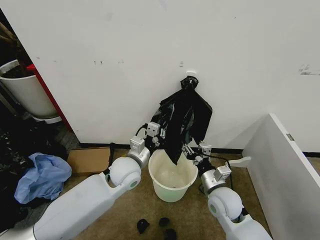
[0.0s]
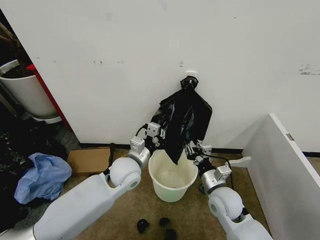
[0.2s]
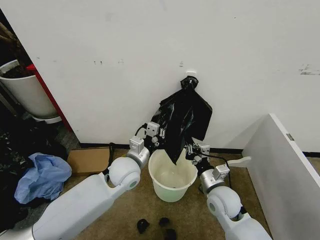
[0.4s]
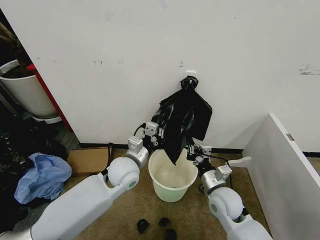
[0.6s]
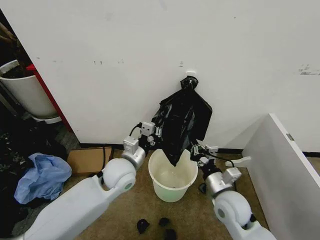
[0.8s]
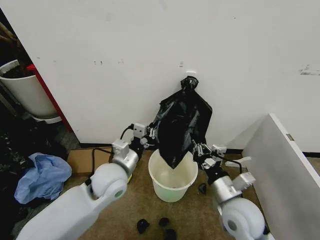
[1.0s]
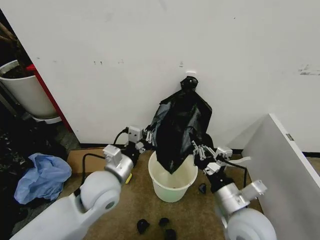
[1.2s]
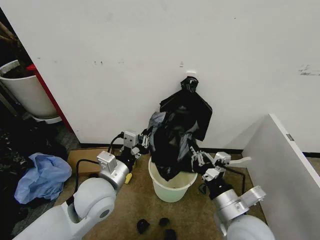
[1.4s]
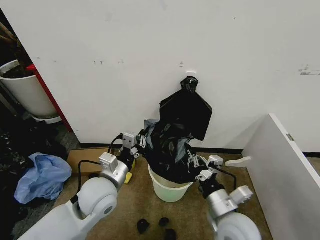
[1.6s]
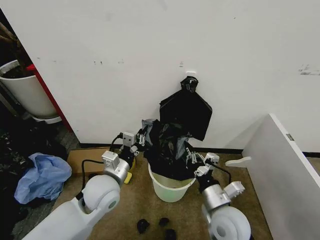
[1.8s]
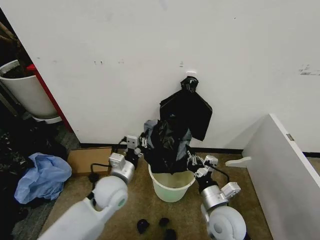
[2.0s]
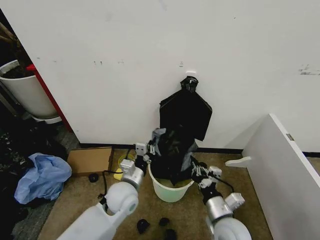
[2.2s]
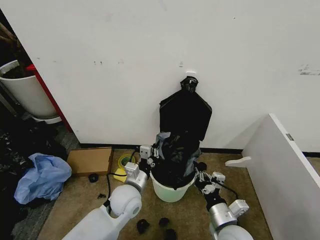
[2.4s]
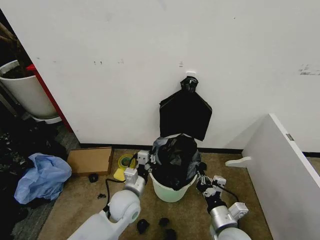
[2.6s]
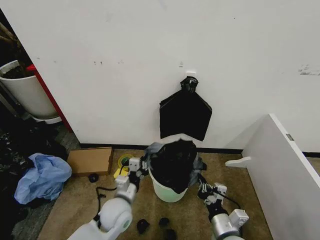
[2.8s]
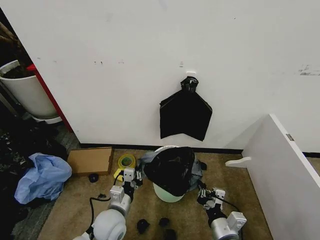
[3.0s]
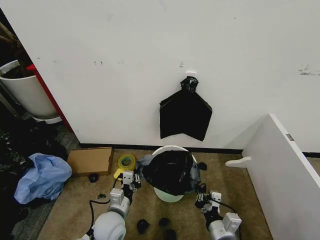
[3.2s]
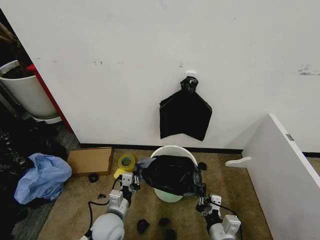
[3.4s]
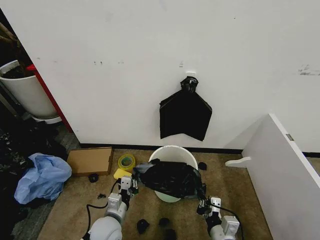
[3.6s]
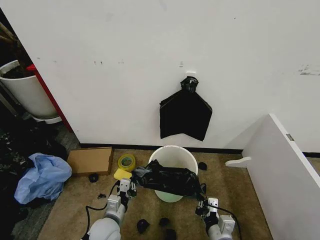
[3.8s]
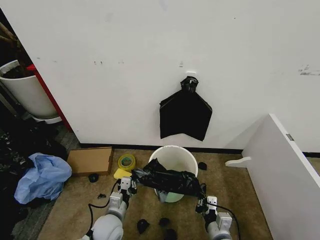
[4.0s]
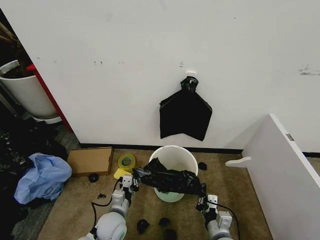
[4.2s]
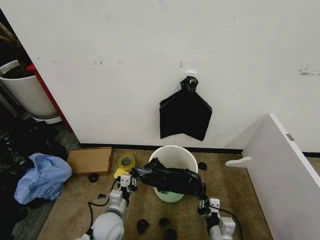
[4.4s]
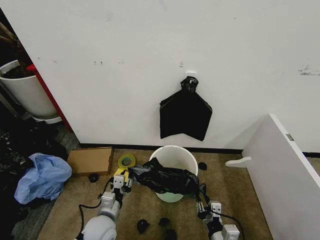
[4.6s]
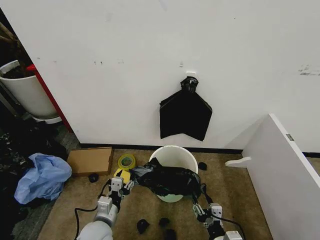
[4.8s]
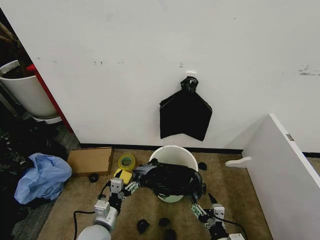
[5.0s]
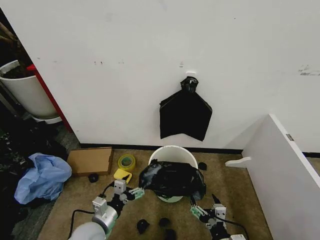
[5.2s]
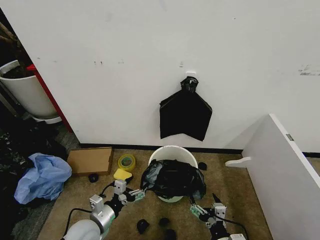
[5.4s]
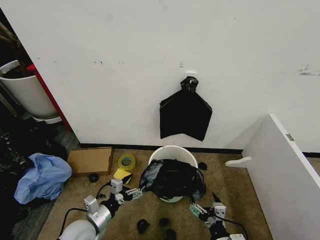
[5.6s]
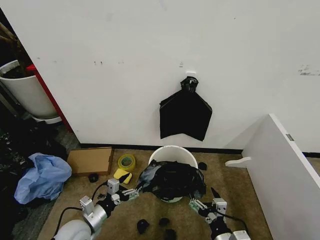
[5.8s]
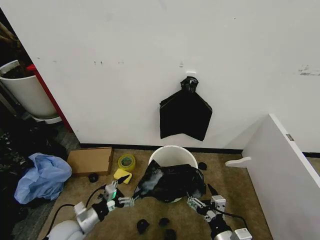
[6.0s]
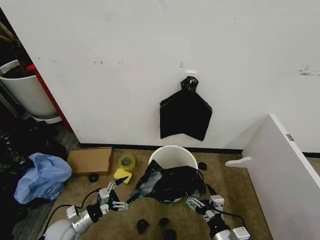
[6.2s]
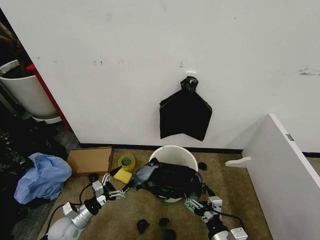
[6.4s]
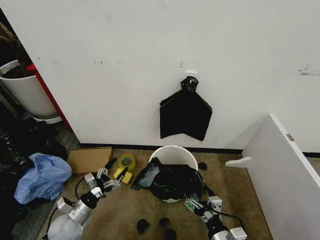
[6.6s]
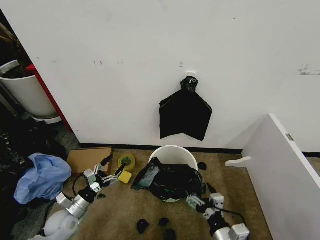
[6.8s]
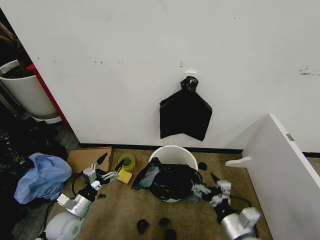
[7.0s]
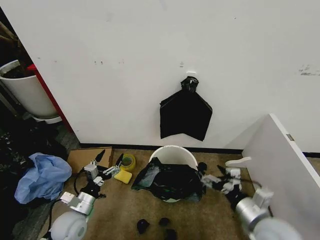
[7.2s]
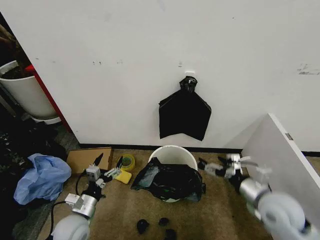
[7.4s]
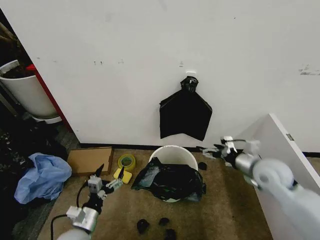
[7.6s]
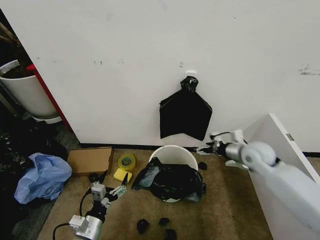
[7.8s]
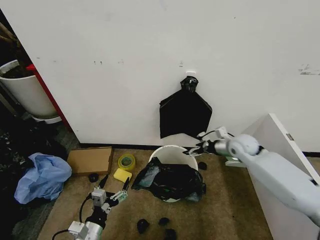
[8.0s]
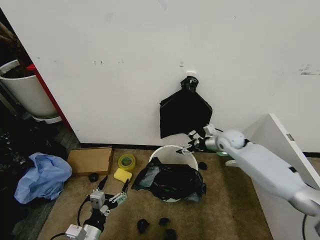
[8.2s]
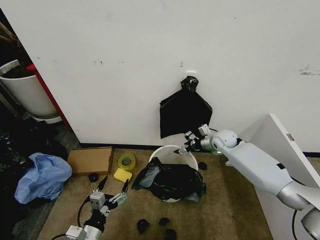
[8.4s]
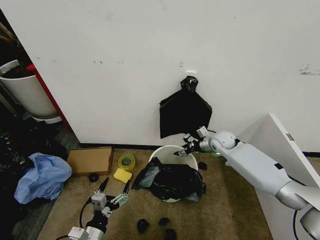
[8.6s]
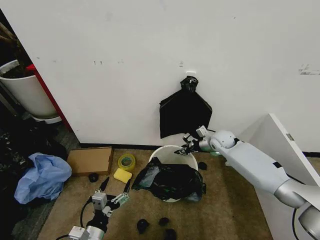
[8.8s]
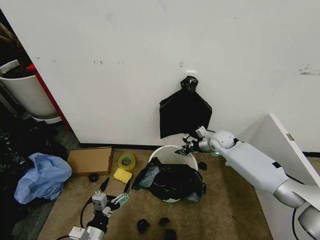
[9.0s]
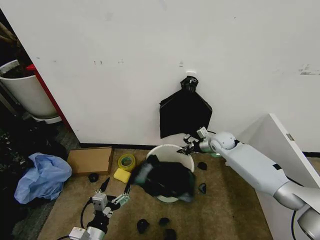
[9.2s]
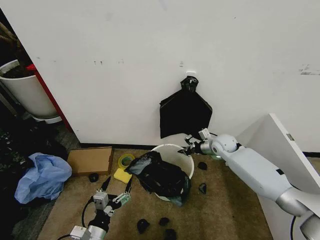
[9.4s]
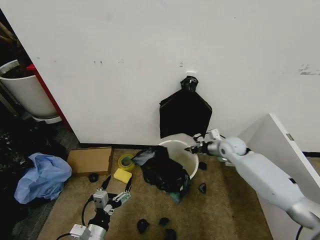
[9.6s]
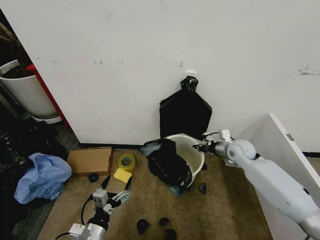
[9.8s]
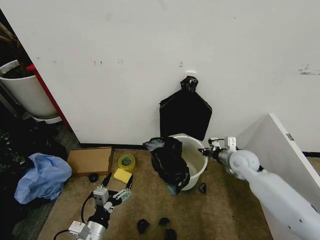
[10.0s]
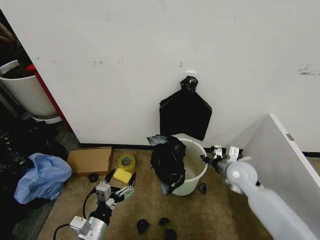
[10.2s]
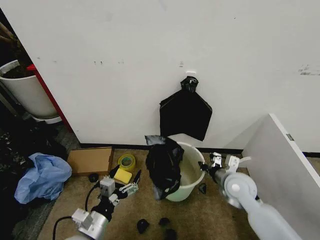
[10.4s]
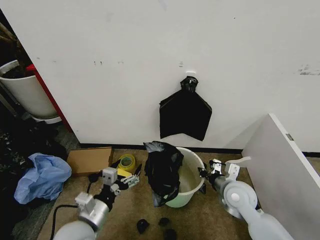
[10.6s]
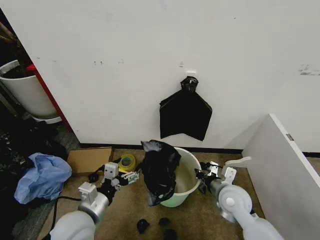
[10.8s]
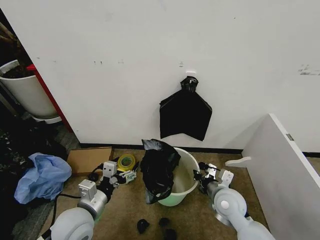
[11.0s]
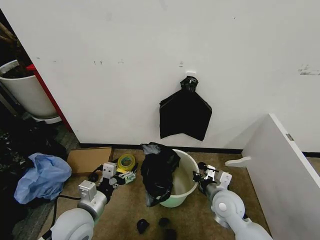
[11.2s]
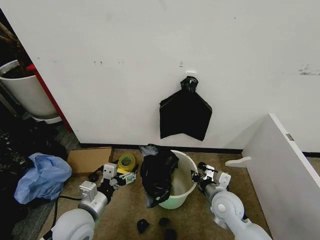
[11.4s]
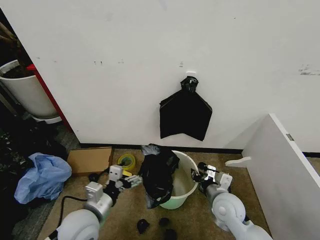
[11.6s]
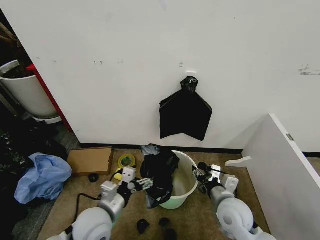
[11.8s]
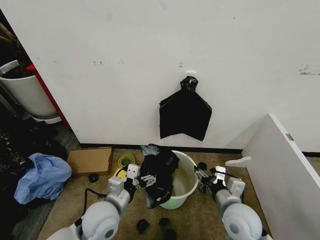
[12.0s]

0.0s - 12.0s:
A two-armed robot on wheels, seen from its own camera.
Task of the whole recording: Place the garbage bag over the trash bin.
0.0s - 1.6s: The right gripper goes roughly 10 cm backward, and closes up. Meanwhile the left gripper shifts about 10 cm backward and to the left.
1.6s - 3.0s: Both grippers move downward, about 10 cm.
3.0s - 4.4s: The right gripper moves downward, approximately 5 cm.
4.4s - 6.0s: The left gripper moves to the left, roughly 15 cm, and opens up, while the right gripper shifts roughly 5 cm upward, and opens its fingers.
6.0s - 7.6s: The left gripper ends up roughly 5 cm from where it was. Meanwhile the right gripper travels forward, upward and to the right by about 30 cm.
7.6s - 9.0s: The left gripper shifts some 5 cm backward. Meanwhile the right gripper moves forward, approximately 20 cm, and closes.
9.0s - 10.4s: The left gripper travels upward by approximately 5 cm. The right gripper moves backward, about 20 cm.
10.4s - 12.0s: The right gripper goes approximately 10 cm backward, and opens. Meanwhile the left gripper is displaced forward and to the right by roughly 10 cm.

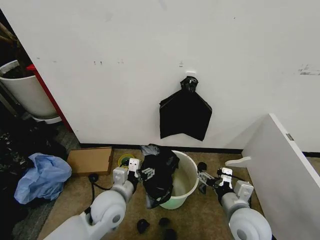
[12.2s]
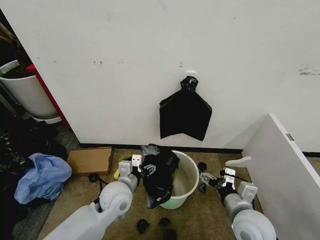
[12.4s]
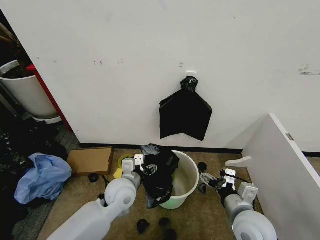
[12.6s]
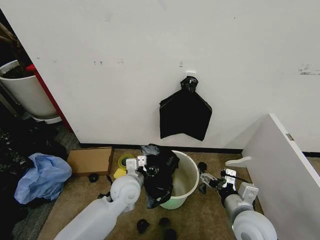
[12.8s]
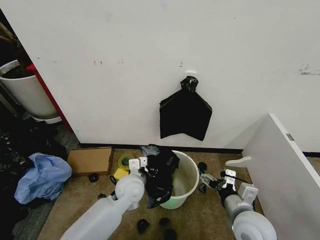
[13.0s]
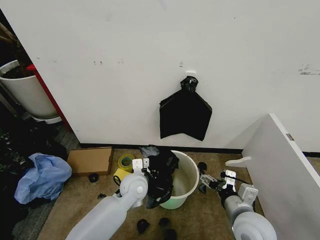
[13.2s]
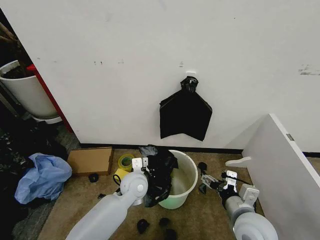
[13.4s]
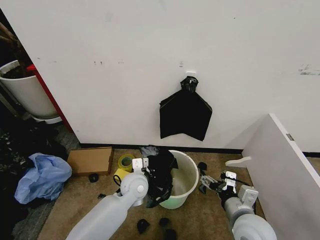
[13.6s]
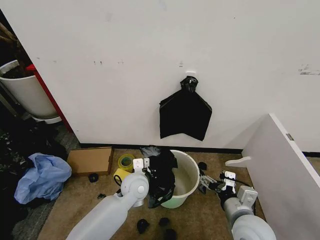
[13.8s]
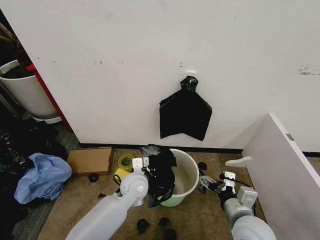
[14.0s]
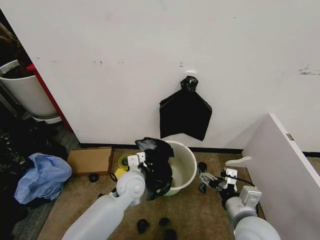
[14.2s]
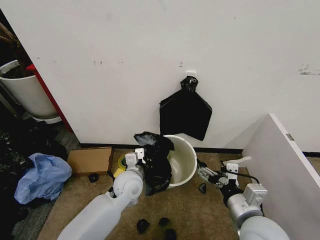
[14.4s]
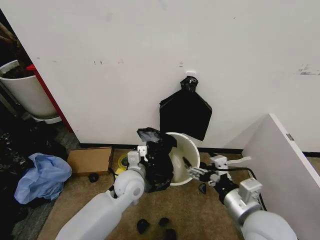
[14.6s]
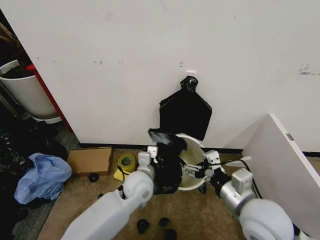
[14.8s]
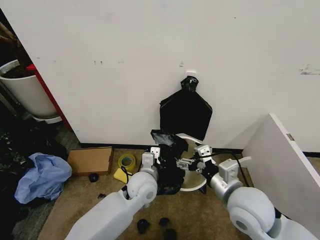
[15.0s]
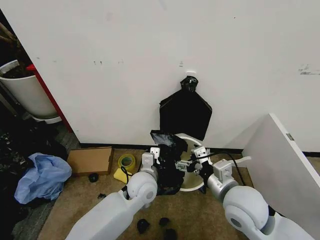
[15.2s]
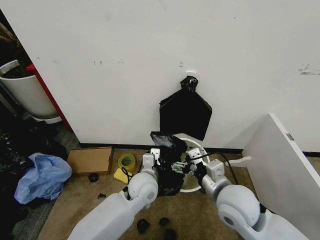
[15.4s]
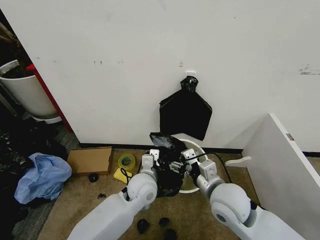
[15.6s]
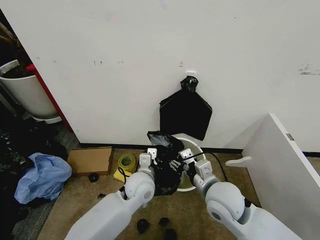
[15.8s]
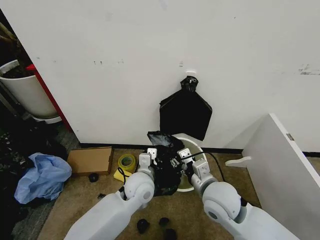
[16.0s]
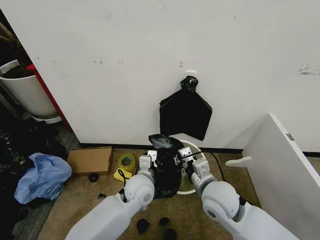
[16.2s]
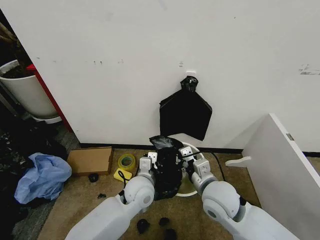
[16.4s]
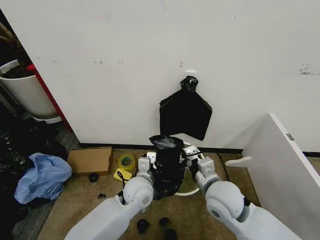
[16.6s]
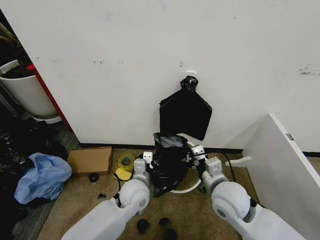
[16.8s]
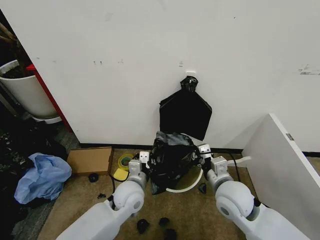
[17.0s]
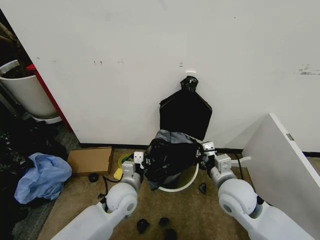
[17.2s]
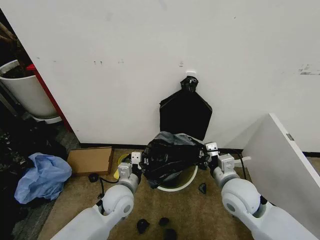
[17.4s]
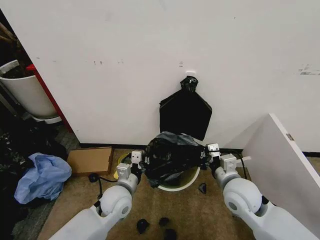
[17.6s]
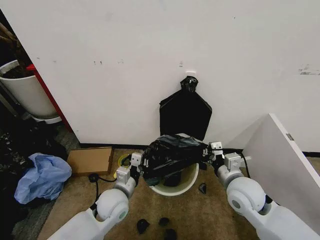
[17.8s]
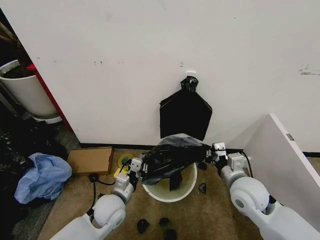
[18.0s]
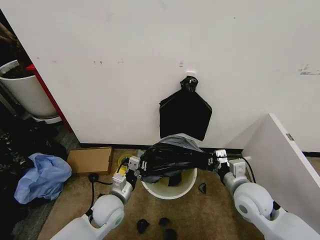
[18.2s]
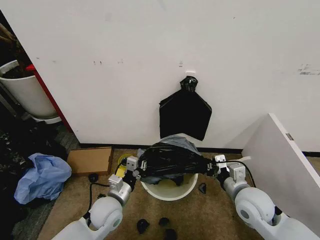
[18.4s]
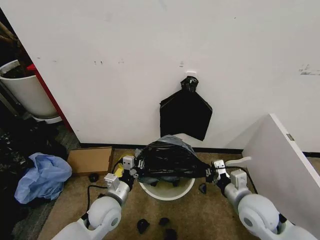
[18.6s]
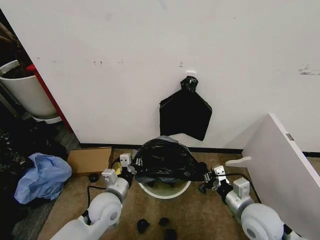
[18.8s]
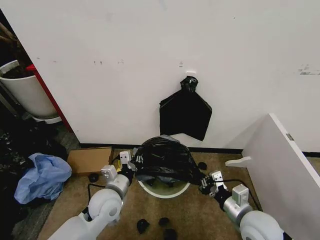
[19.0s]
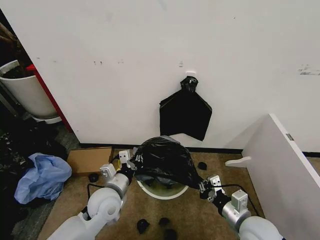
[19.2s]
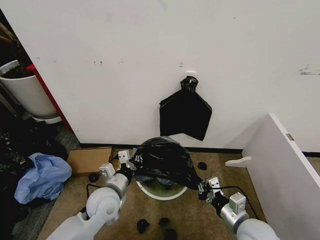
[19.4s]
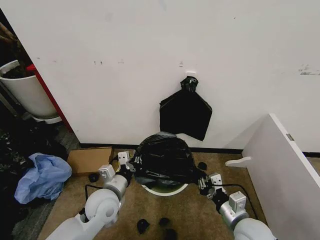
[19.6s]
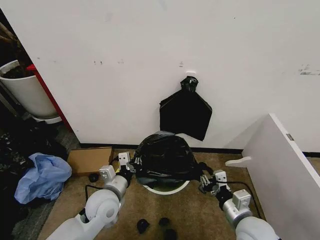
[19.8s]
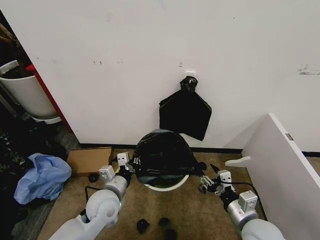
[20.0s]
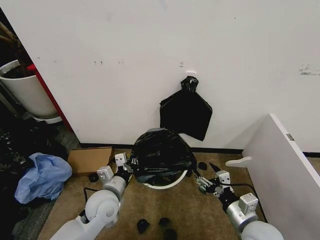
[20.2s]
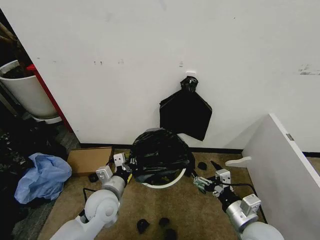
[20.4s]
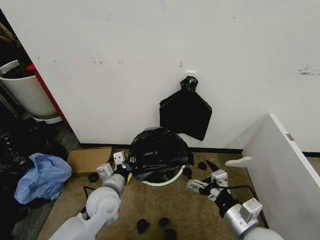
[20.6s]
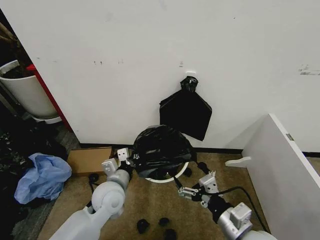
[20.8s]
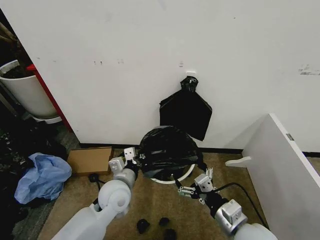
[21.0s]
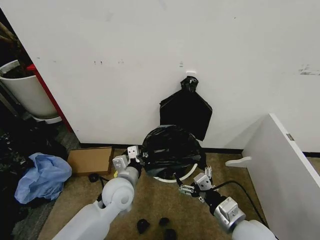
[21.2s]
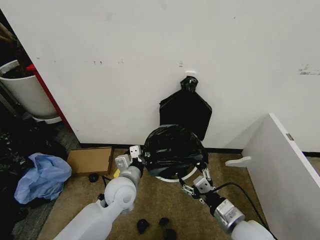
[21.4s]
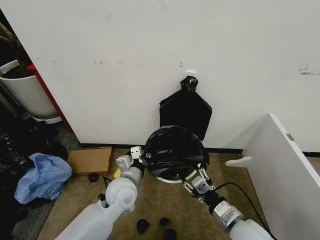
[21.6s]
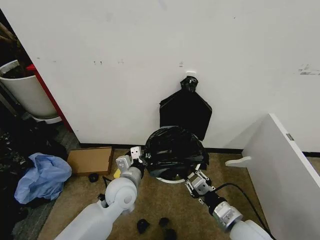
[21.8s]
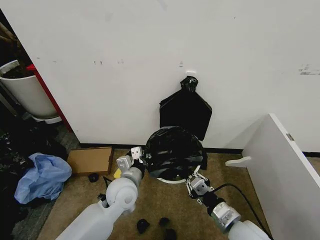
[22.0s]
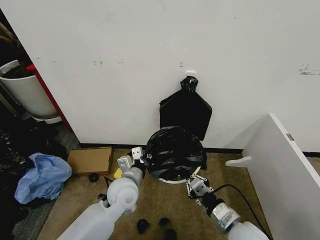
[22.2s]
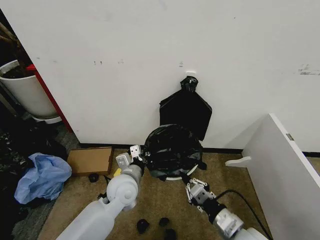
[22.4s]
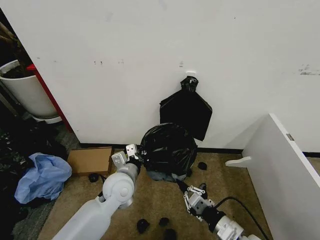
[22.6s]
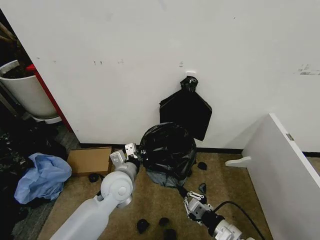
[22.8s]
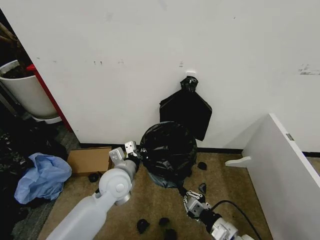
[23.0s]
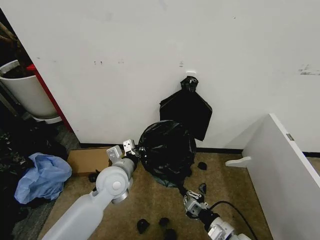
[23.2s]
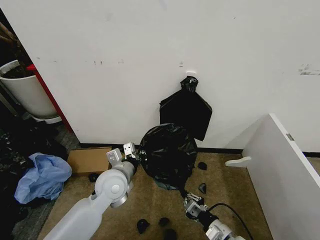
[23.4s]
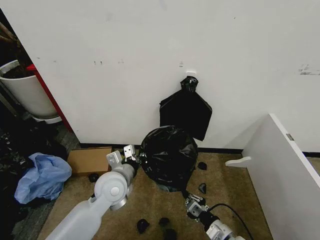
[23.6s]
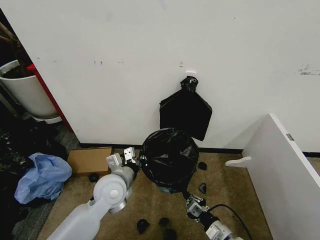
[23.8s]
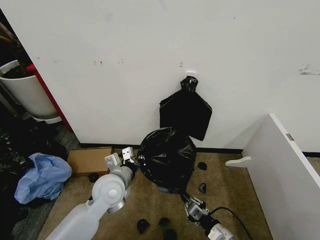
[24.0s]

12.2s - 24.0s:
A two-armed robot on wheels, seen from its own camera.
Task of the whole recording: Place the garbage bag over the trash bin.
12.2s - 13.6s: The left gripper moves forward and to the right, roughly 10 cm, and closes its fingers.
13.6s - 15.2s: The right gripper moves upward, roughly 10 cm. Meanwhile the left gripper ends up roughly 5 cm from where it was.
15.2s - 16.6s: The right gripper ends up approximately 5 cm from where it was, and closes up.
16.6s - 18.2s: The left gripper heads to the left, covering about 10 cm, while the right gripper shifts roughly 10 cm to the right.
18.2s - 19.6s: The left gripper travels upward by roughly 5 cm, while the right gripper is displaced backward and downward by some 10 cm.
19.6s - 21.0s: The right gripper moves upward, roughly 5 cm, and opens its fingers.
21.0s - 22.6s: The right gripper closes its fingers.
22.6s - 24.0s: The right gripper is displaced downward by about 10 cm.
